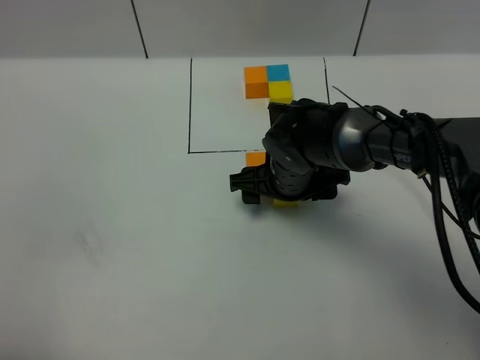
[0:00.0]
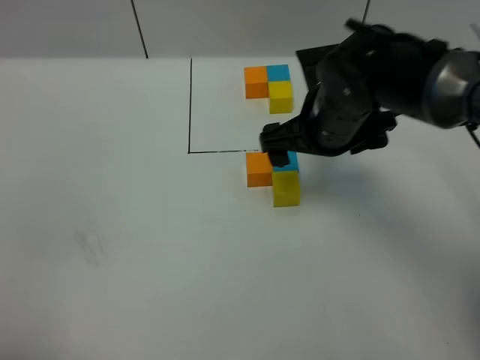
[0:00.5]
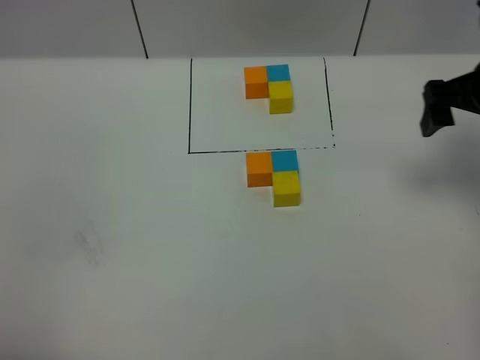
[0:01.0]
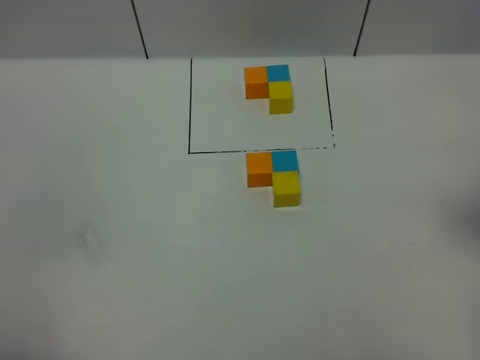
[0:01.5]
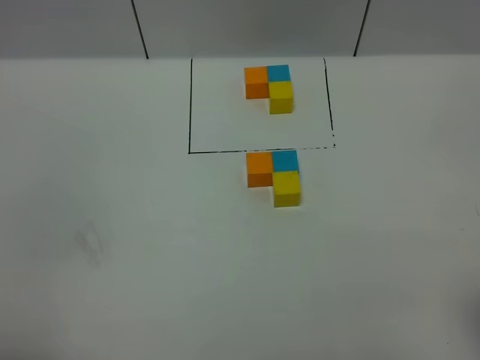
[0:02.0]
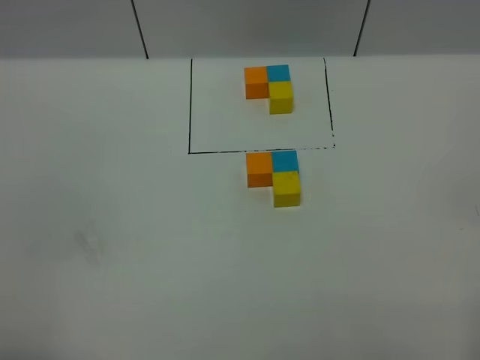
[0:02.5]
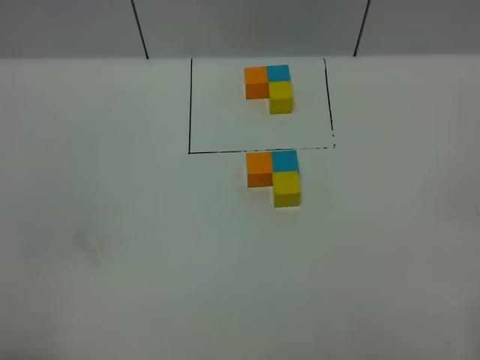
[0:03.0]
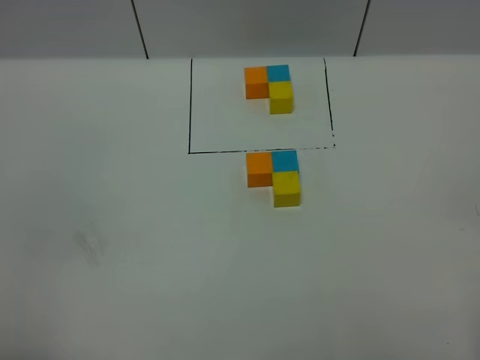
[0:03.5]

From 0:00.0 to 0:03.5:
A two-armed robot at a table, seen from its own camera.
Task of the whole recording: According to the building block template in front, assemble the scattered blocks together.
From 0:00.0 to 0:02.0: The right gripper goes about 40 cm backward, to the right and upward.
